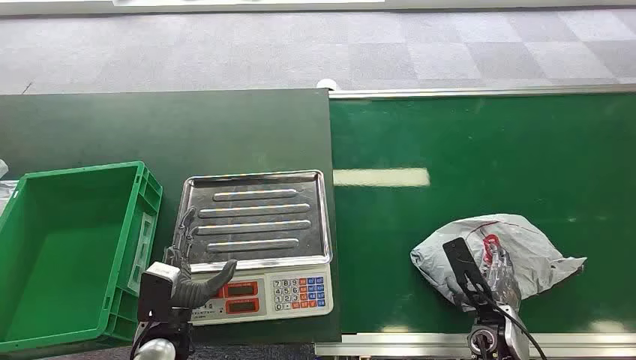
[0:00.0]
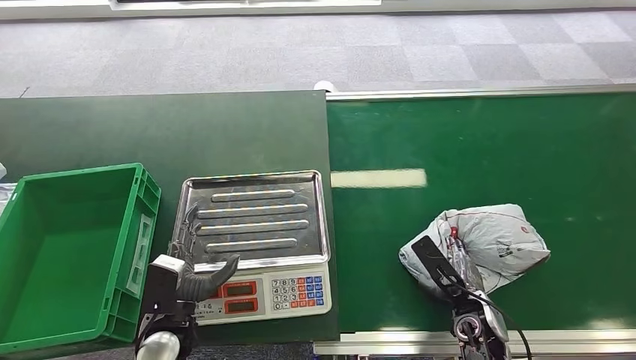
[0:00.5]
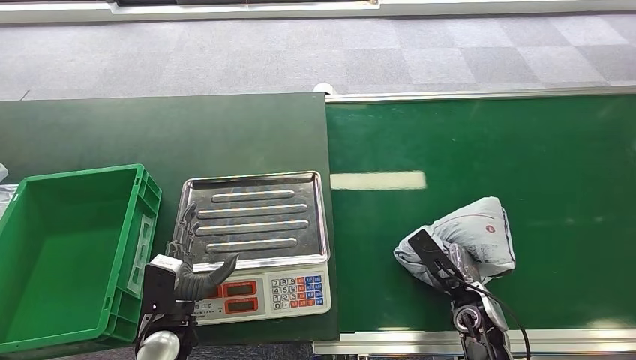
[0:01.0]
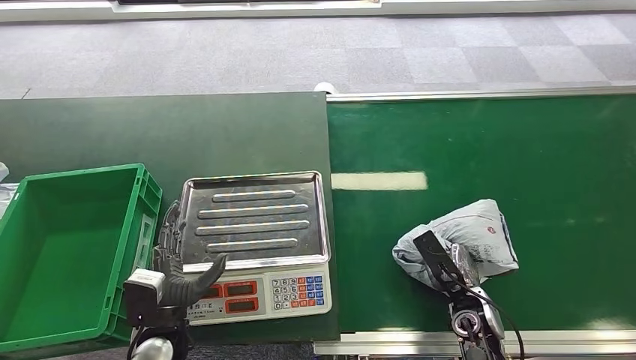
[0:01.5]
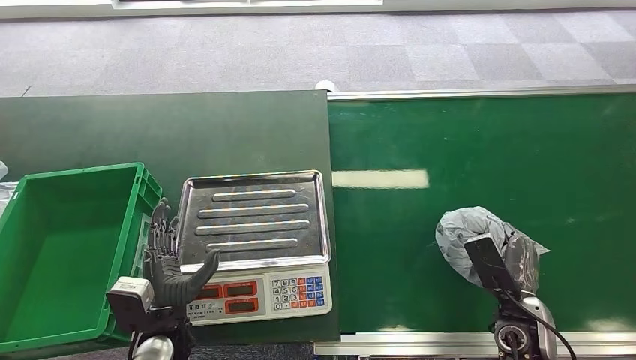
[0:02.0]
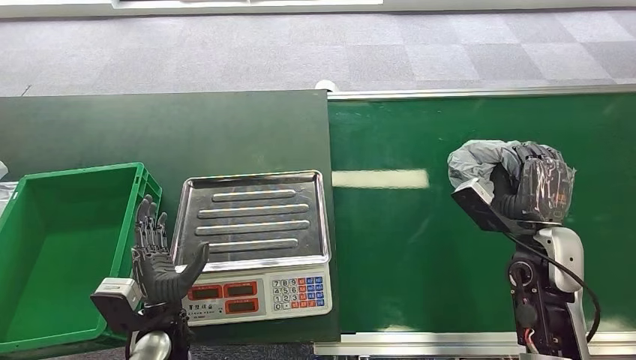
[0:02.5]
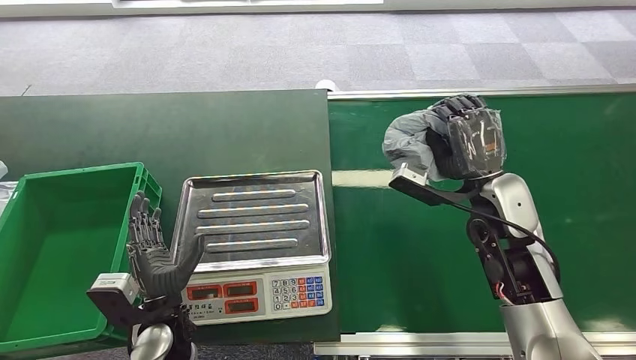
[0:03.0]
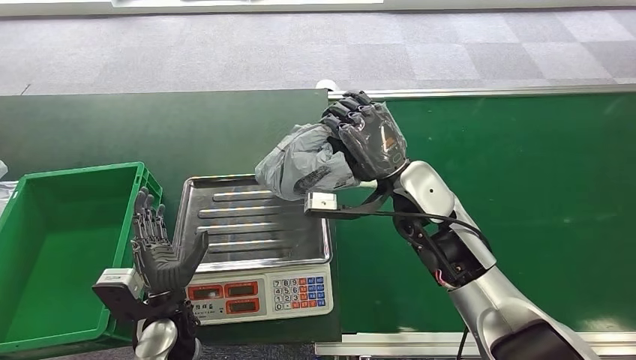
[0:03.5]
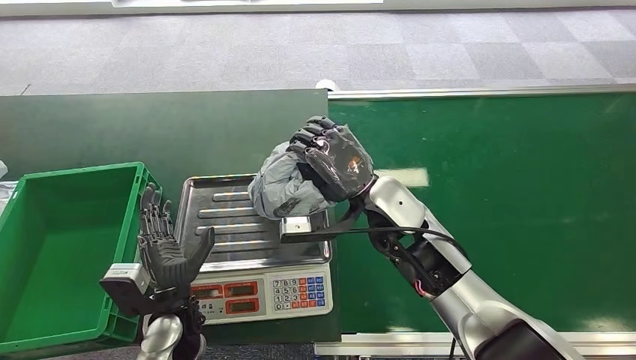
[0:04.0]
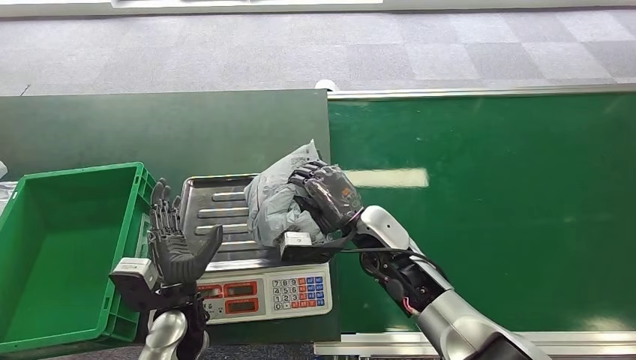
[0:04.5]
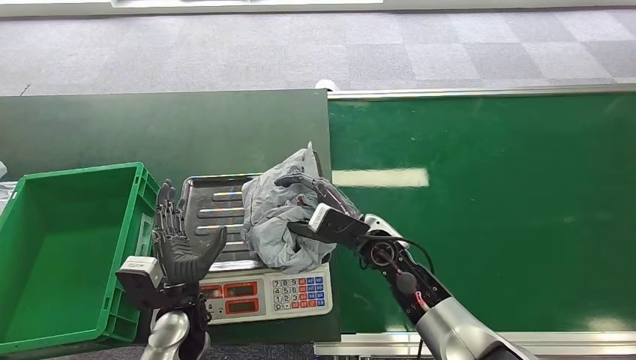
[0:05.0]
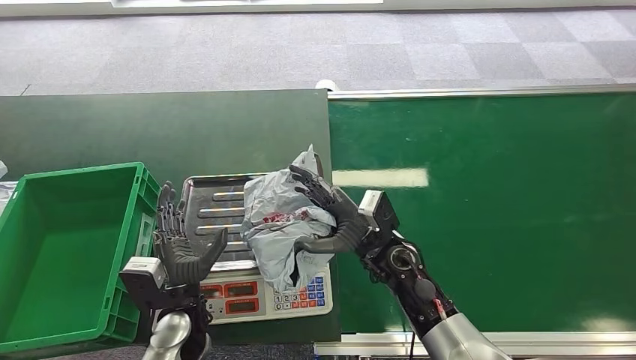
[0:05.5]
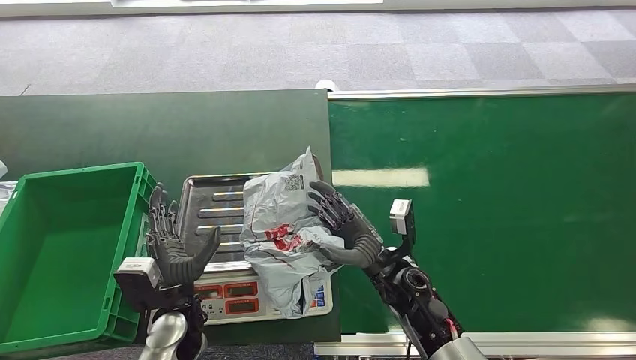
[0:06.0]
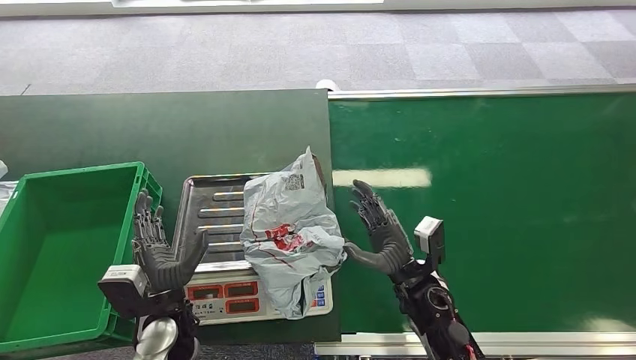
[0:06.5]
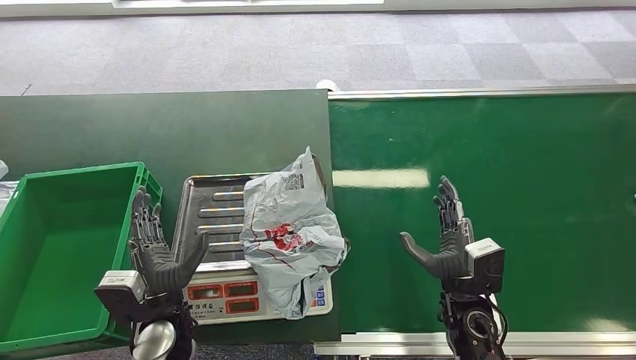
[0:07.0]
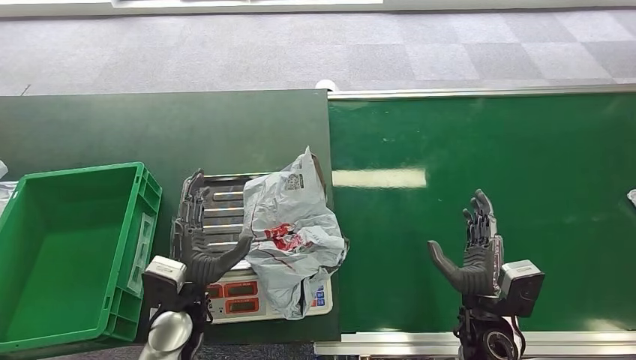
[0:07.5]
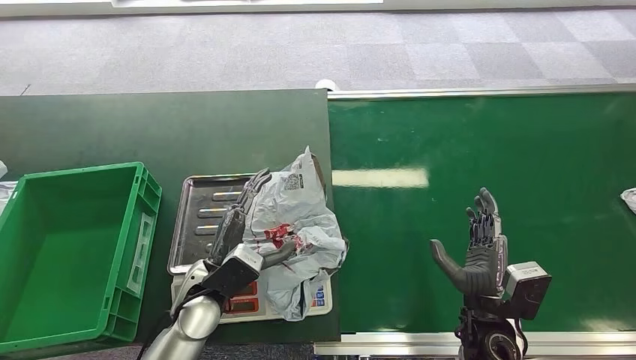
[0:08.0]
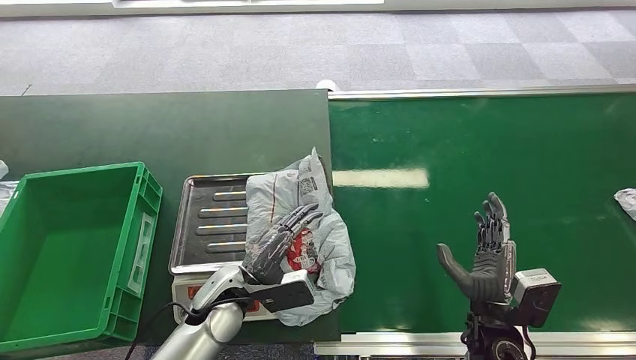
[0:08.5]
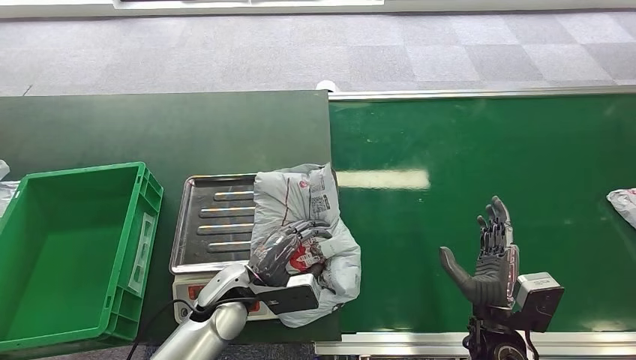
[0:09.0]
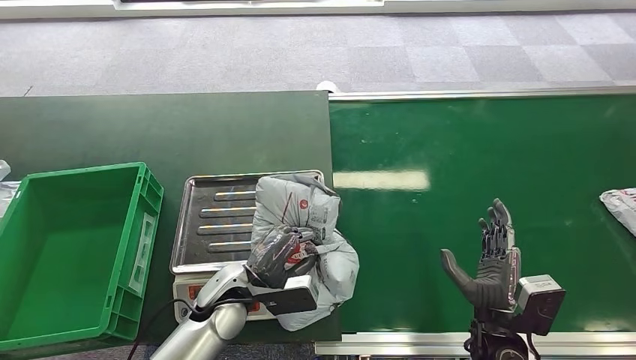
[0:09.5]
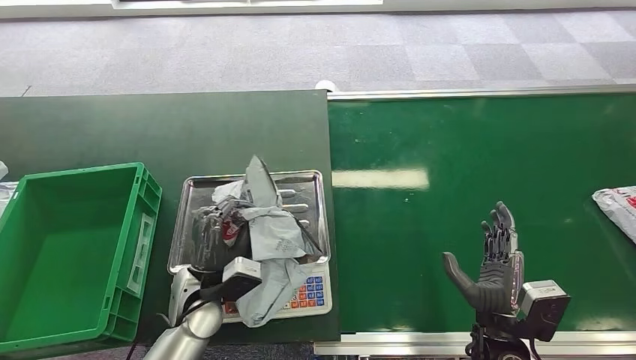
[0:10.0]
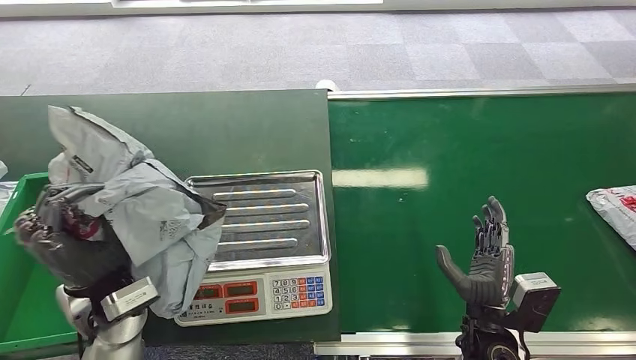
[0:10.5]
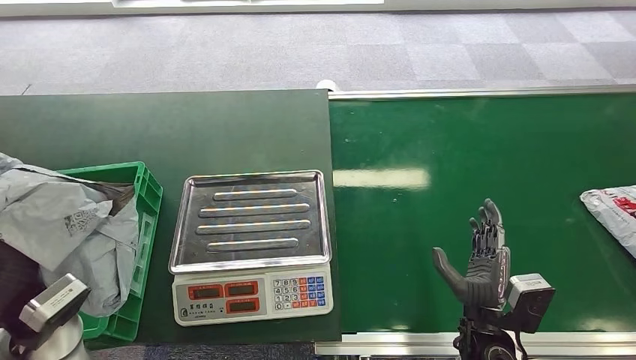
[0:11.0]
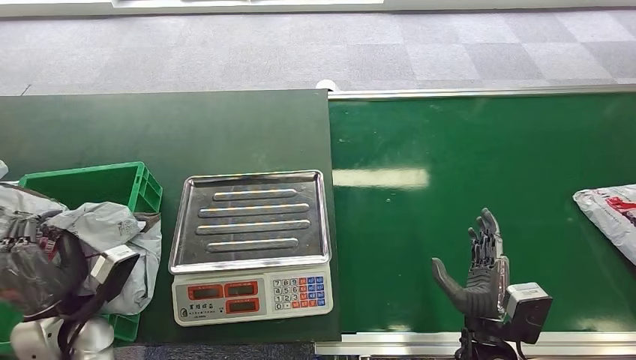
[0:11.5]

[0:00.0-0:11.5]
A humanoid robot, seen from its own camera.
Step, 0:00.0 to 0:03.0: Pick up the package from the conveyor belt.
Step, 0:03.5 to 0:06.5: Place the package onto the inbound machine.
Step, 0:07.5 to 0:10.0: Pick up the package from the inbound machine.
Step, 0:10.5 to 0:11.5: Place the package into the parcel locker.
0:02.0 to 0:04.0: The right hand moves to the left, forward and upward, about 30 cm.
0:04.0 to 0:06.0: The right hand is displaced downward and backward by approximately 15 cm.
0:06.0 to 0:07.5: The right hand moves to the right and backward, about 15 cm.
0:07.5 to 0:09.5: The left hand shifts about 5 cm to the right.

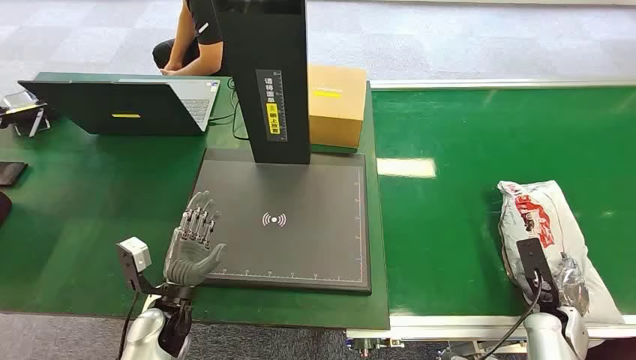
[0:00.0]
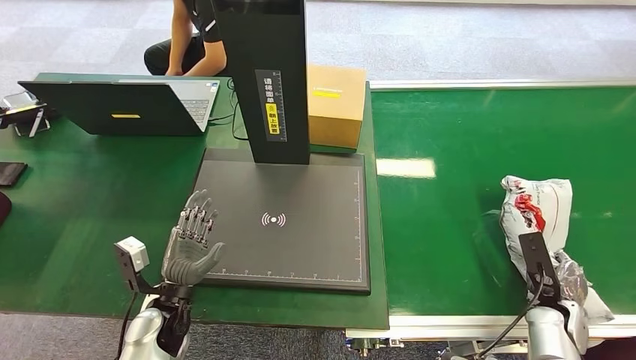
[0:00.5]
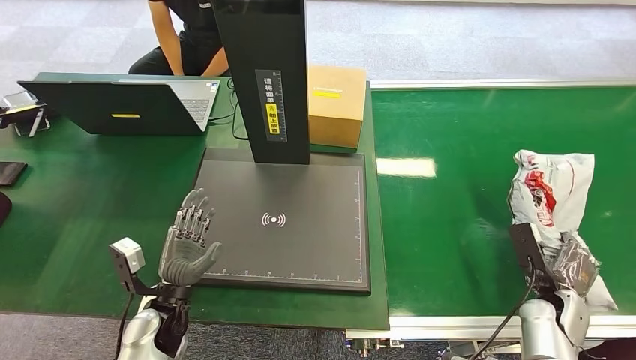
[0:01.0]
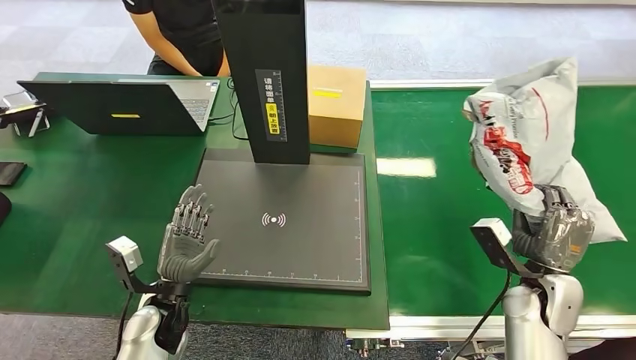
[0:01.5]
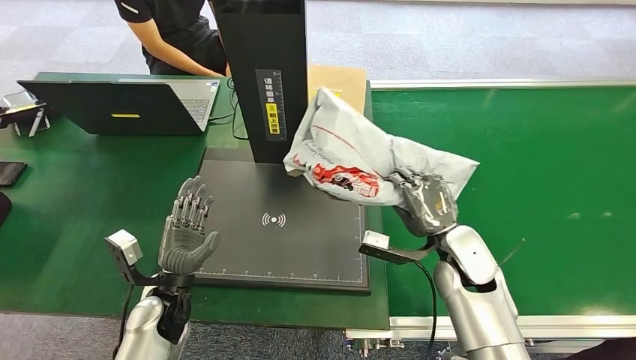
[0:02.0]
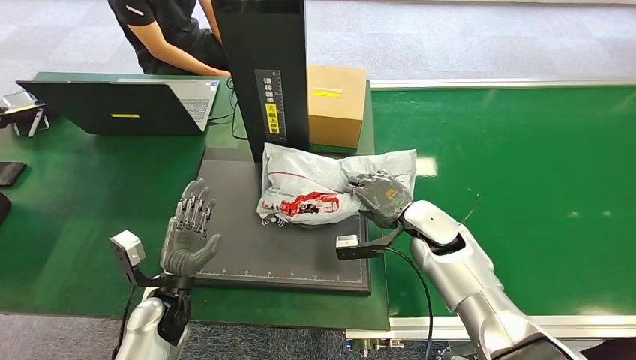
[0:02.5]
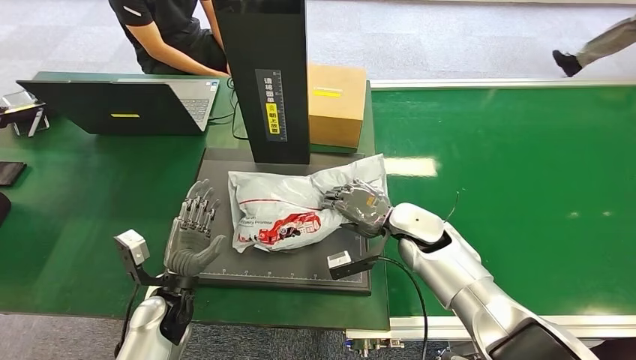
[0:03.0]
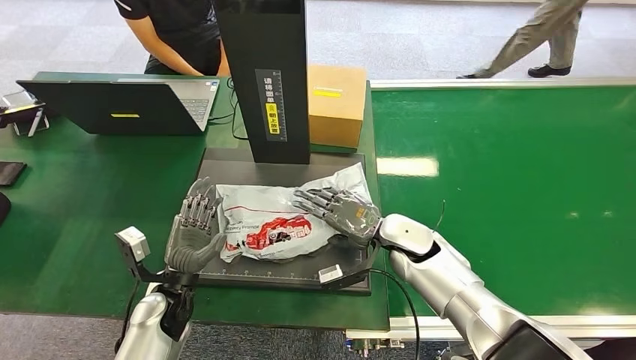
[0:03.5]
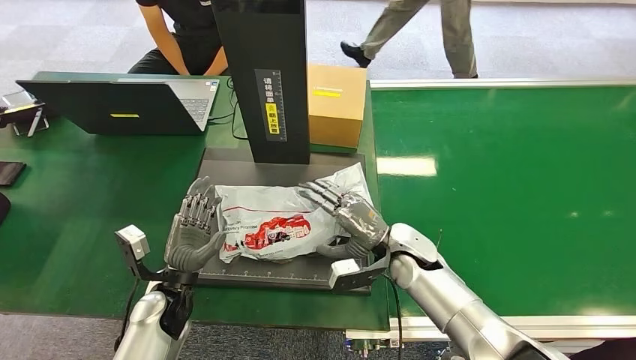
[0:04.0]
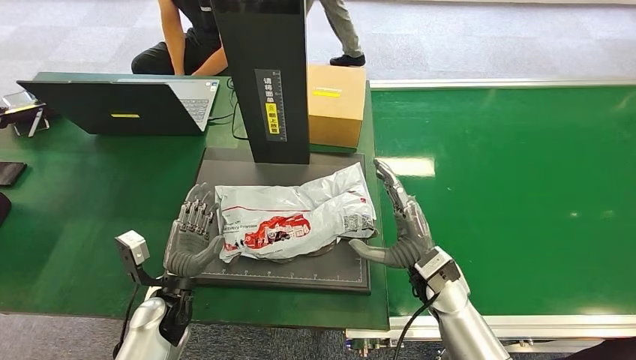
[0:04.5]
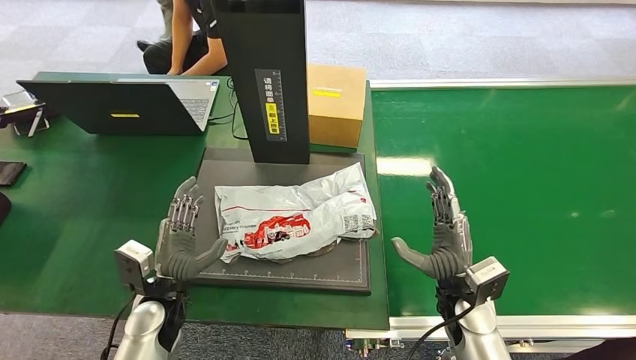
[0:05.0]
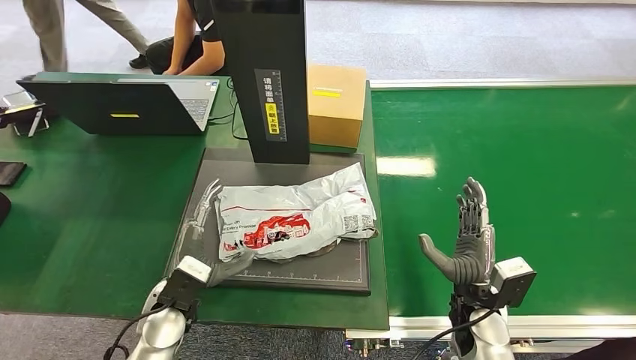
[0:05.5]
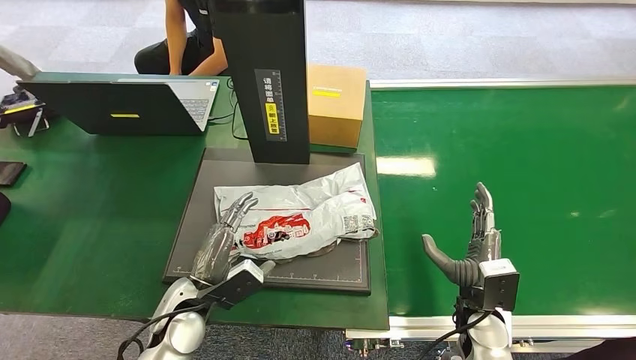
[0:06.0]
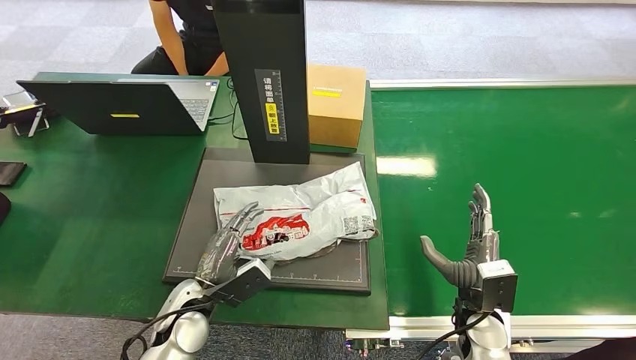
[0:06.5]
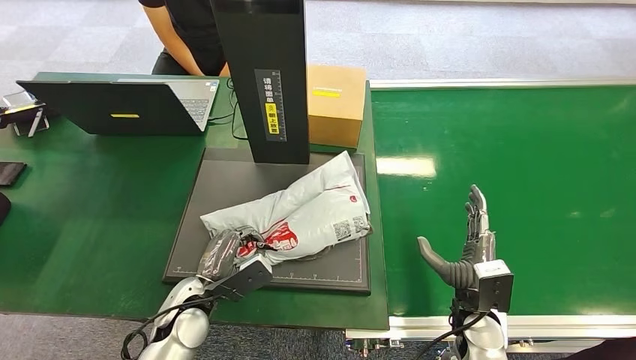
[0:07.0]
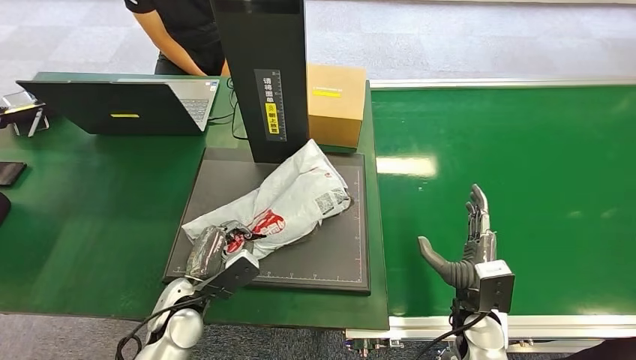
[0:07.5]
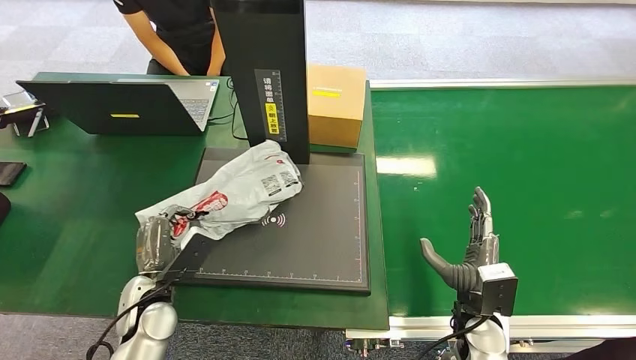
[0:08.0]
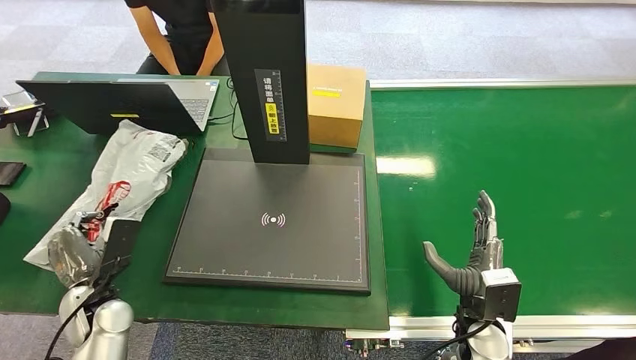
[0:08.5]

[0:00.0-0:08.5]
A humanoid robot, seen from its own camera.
Step, 0:00.0 to 0:01.5: Pick up the package from the conveyor belt.
Step, 0:02.0 to 0:04.5: Place the package onto the inbound machine.
Step, 0:05.0 to 0:08.0: Pick up the package from the inbound machine.
0:04.0 to 0:06.5: The right hand heads to the right and backward, covering approximately 15 cm; the left hand ends up about 5 cm from where it was.
0:06.5 to 0:08.5: The left hand heads to the left, covering some 15 cm.
